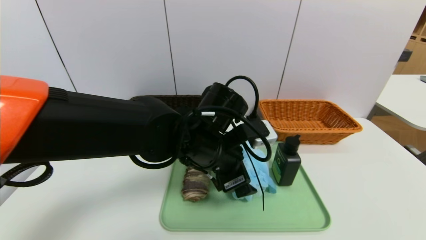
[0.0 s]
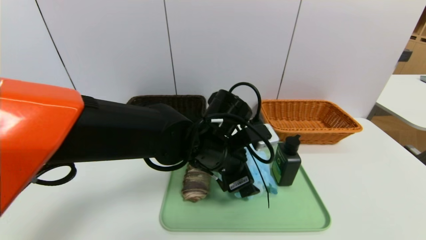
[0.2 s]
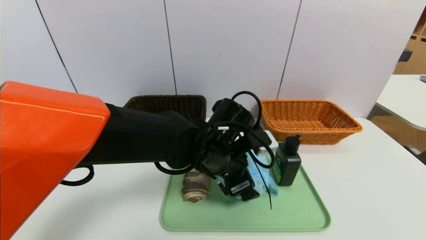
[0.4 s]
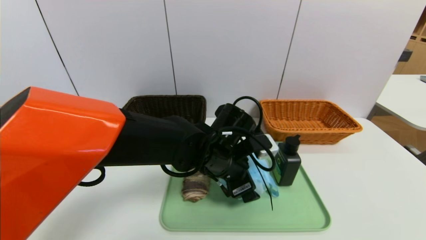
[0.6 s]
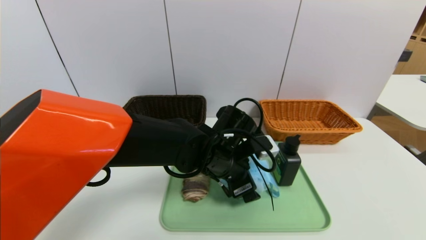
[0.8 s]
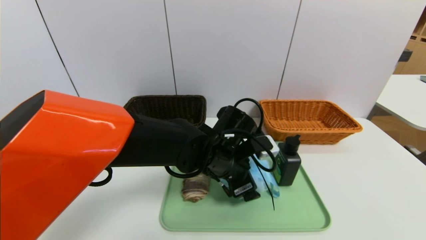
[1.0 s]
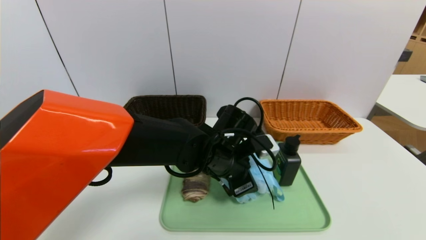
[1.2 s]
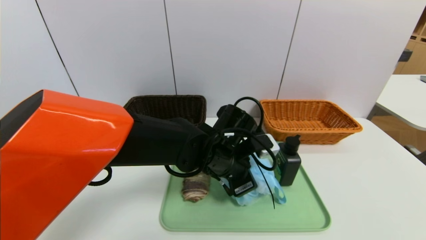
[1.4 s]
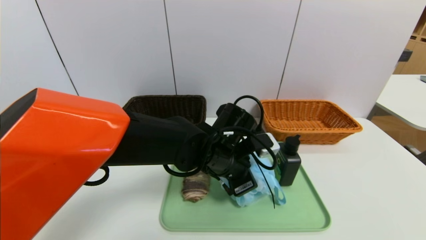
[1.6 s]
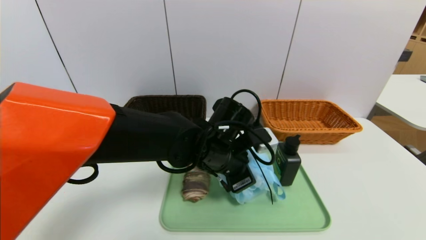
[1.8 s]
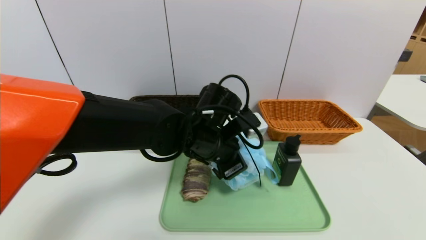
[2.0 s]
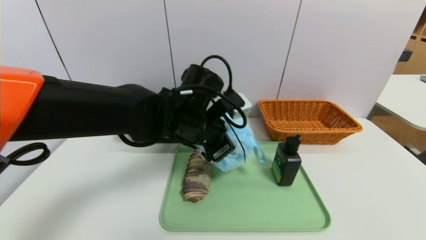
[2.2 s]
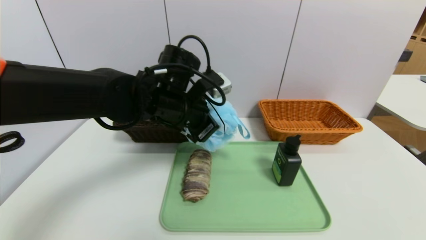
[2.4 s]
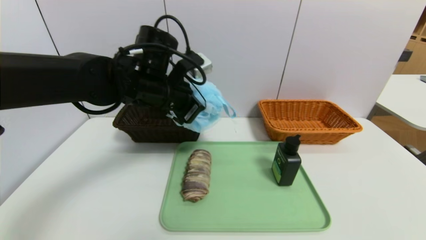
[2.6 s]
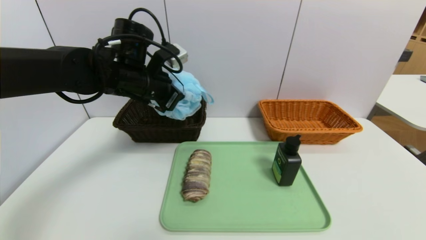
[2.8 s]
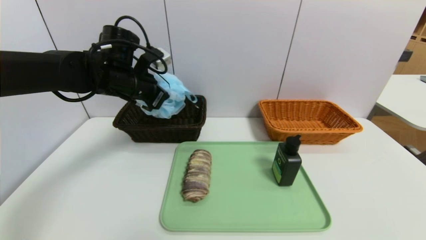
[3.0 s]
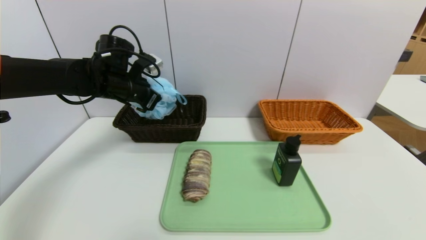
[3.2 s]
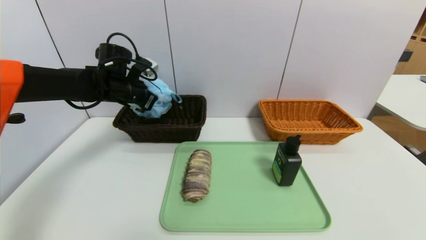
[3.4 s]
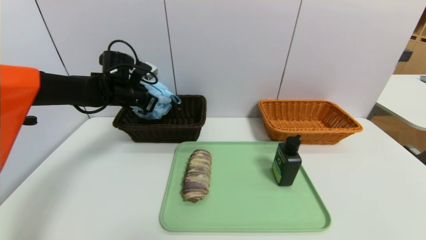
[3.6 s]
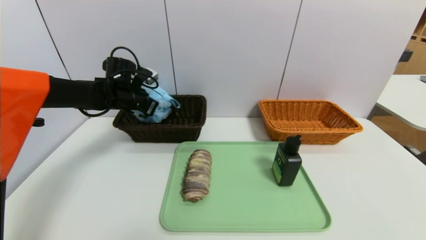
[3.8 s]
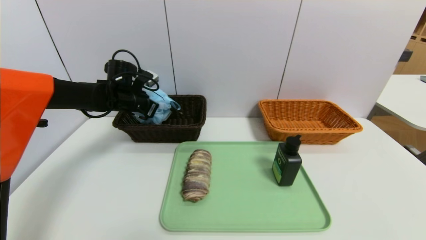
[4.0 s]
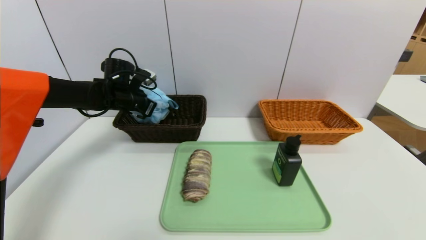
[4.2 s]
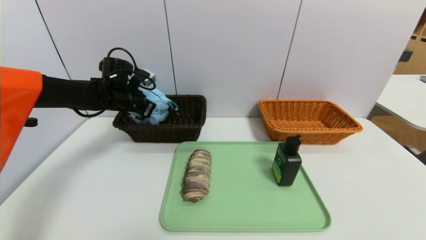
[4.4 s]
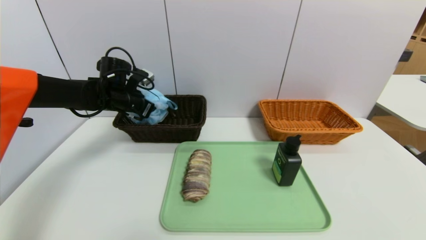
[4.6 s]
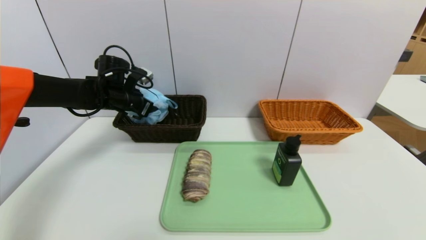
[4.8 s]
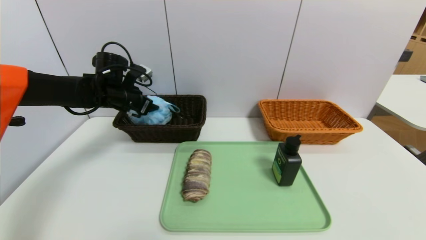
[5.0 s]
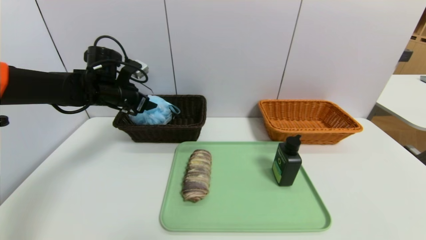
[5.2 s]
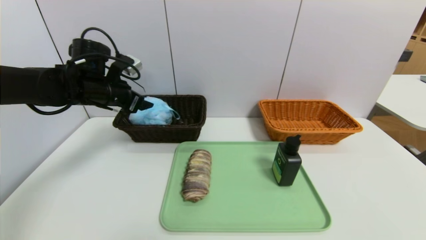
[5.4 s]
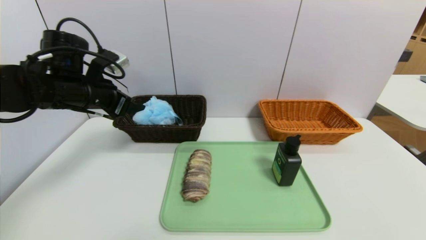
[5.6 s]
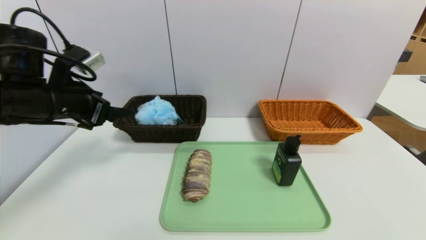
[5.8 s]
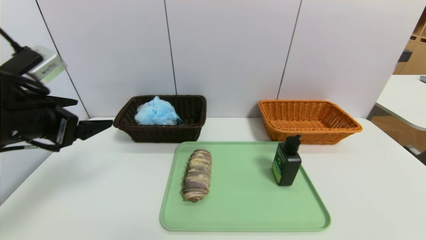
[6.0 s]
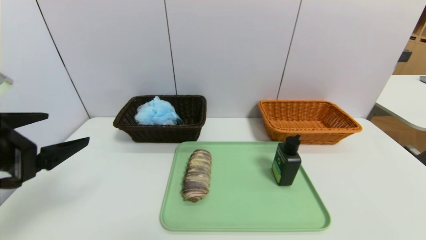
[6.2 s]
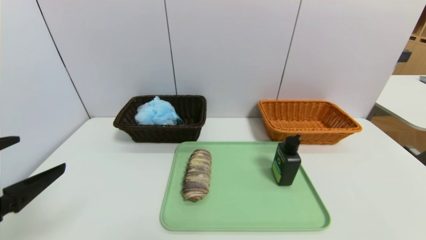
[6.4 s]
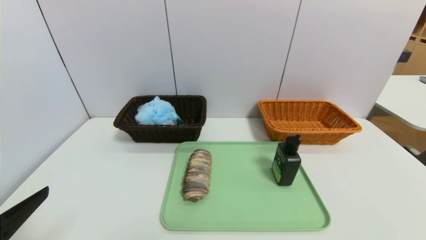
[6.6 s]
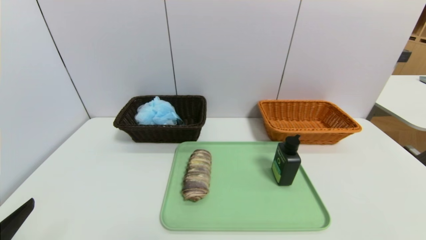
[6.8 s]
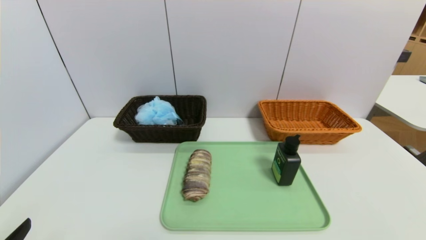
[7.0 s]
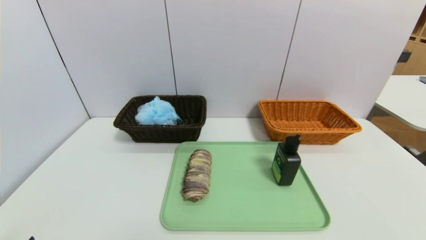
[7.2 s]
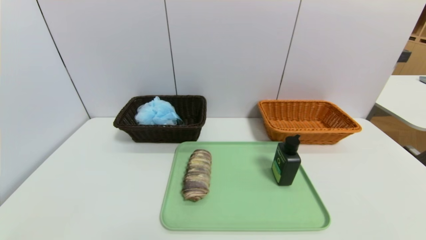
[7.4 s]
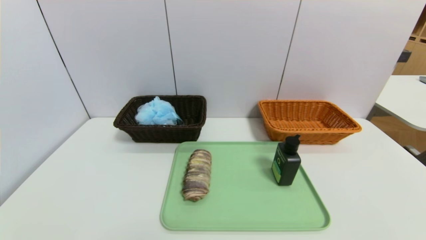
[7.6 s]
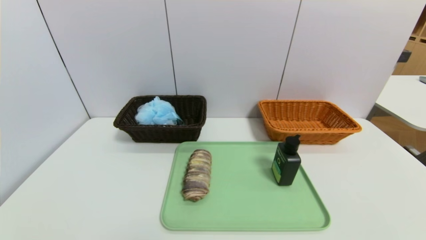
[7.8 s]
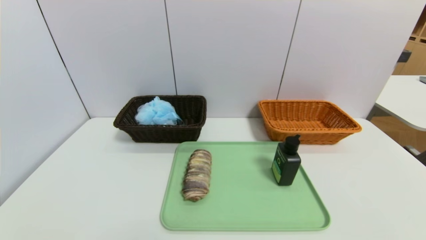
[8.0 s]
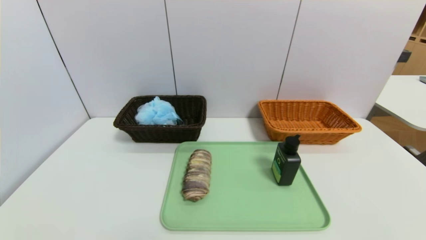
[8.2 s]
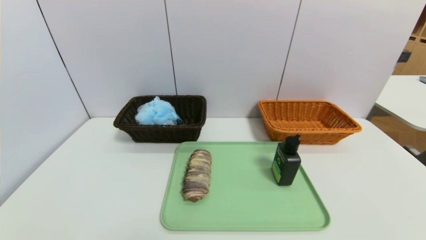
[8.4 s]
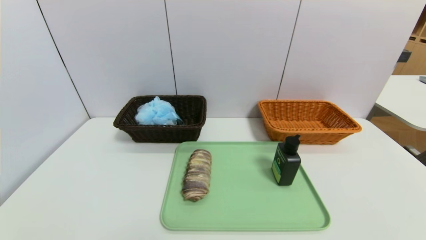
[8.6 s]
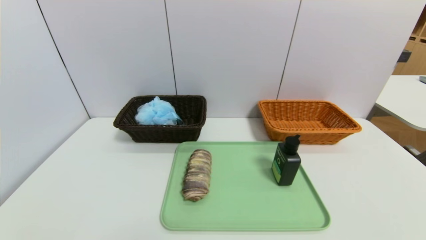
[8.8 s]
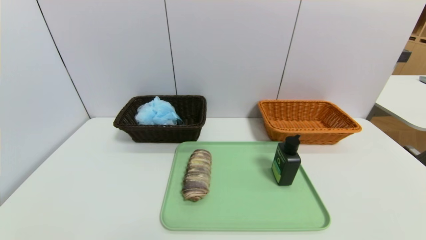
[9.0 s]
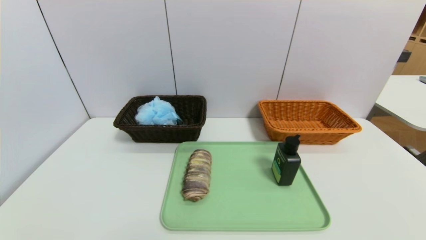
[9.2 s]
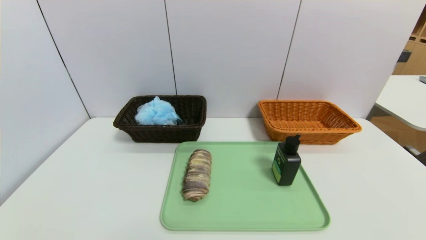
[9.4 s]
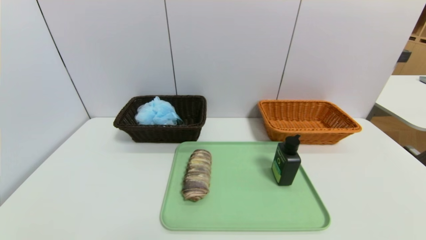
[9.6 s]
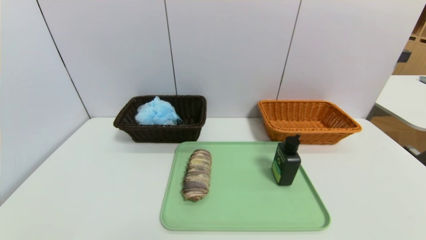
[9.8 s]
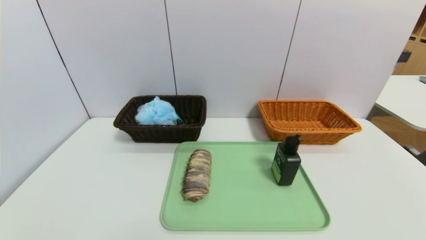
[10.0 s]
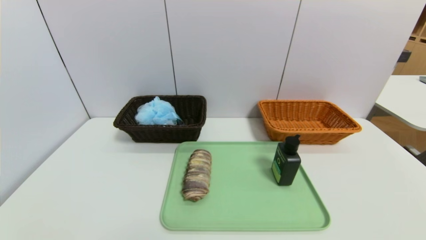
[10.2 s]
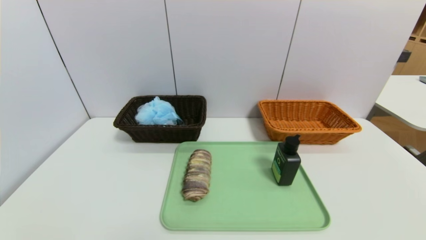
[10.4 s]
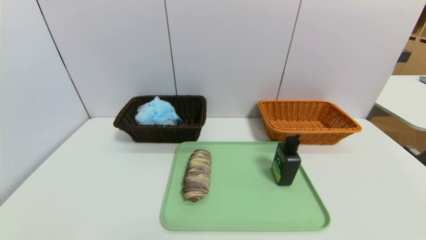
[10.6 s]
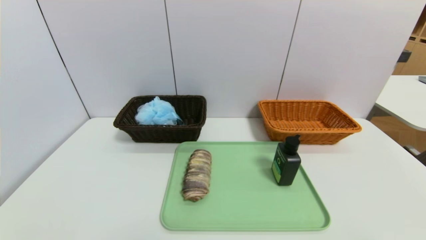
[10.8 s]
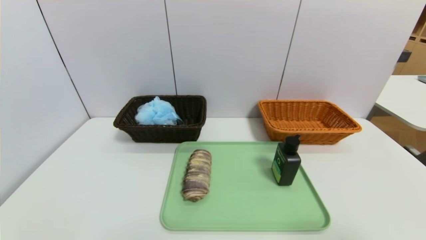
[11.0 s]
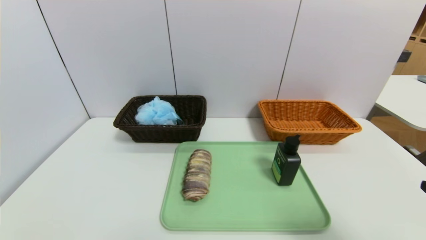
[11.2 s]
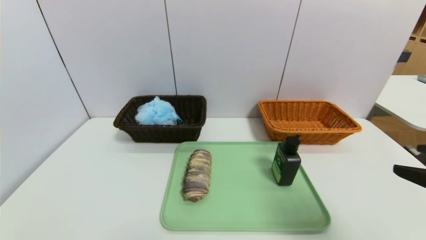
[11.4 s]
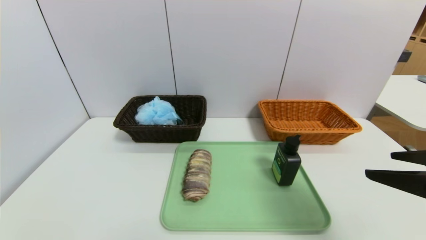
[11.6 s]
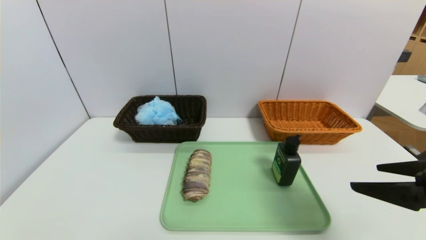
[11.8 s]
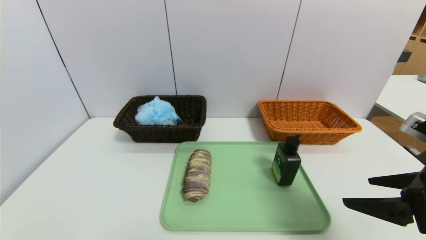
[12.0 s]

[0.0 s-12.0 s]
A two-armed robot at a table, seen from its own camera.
Task of the whole recording: place the food in the right basket with the right gripper, and place the non food items in the left basket with the left gripper.
Step, 0.0 to 5.2 s: Grasp the bath ball and put it in the left basket.
0.0 to 1.6 s: The left gripper changes place by roughly 5 cm, and closes up.
1.6 to 3.0 s: The left gripper heads to the left, upward and forward, covering approximately 25 cm.
3.0 to 4.4 s: The left gripper shifts about 10 cm downward, forward and to the left.
4.4 to 6.0 s: The left gripper travels backward by roughly 25 cm, and opens up.
6.0 to 7.6 s: The left gripper goes roughly 30 cm backward and downward.
10.4 to 12.0 s: The right gripper is displaced forward and upward by roughly 20 cm.

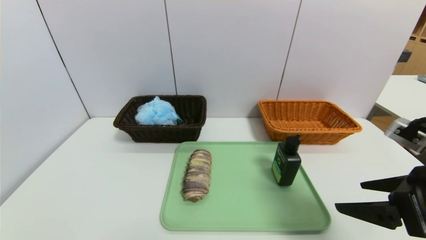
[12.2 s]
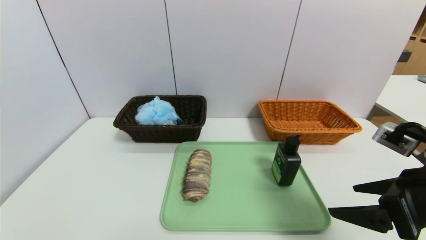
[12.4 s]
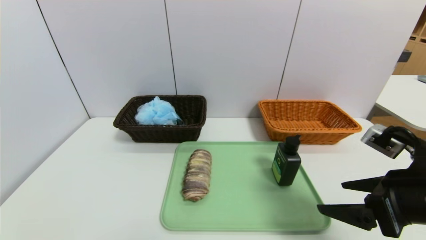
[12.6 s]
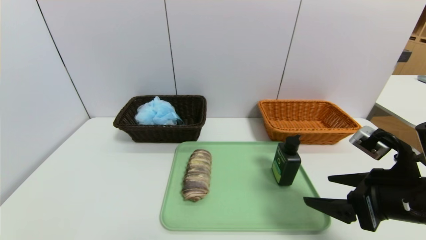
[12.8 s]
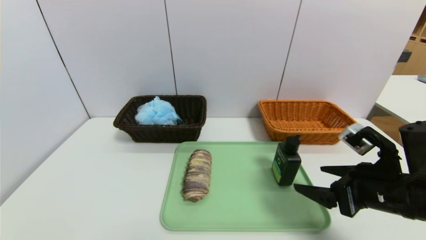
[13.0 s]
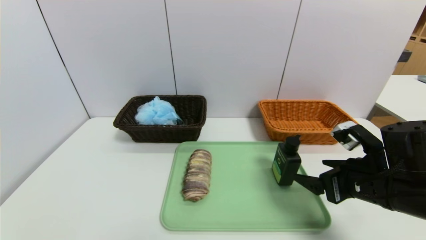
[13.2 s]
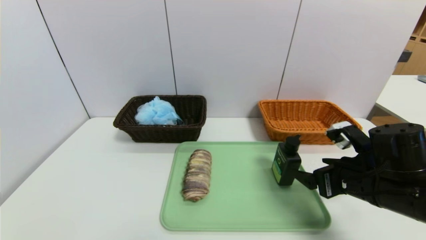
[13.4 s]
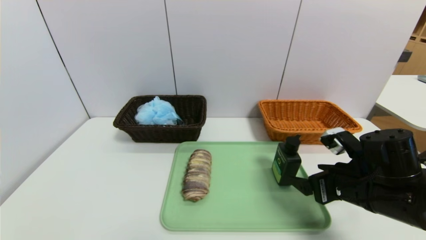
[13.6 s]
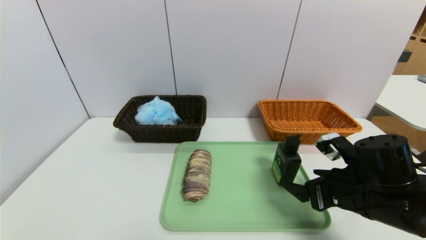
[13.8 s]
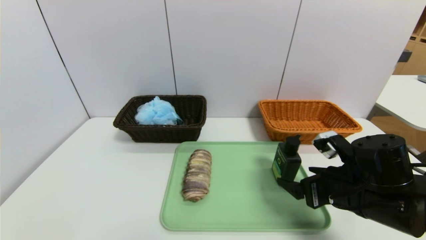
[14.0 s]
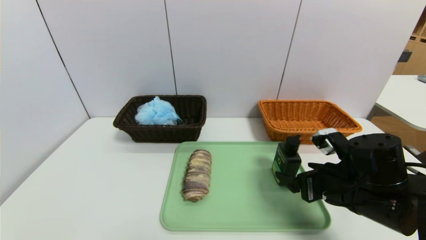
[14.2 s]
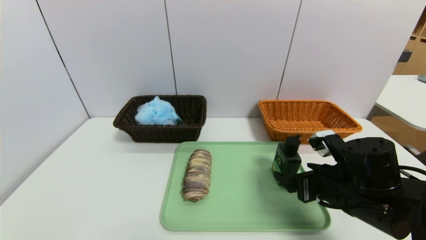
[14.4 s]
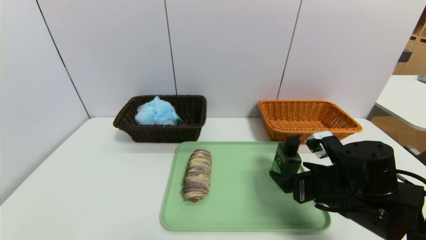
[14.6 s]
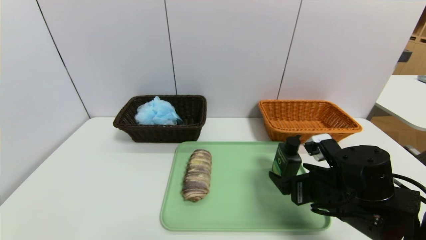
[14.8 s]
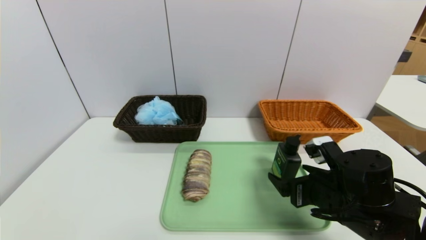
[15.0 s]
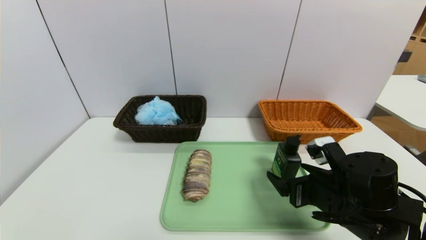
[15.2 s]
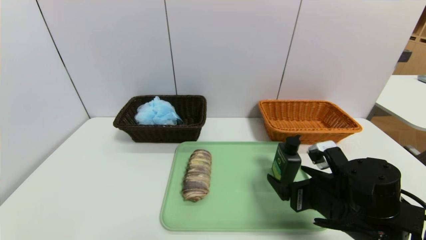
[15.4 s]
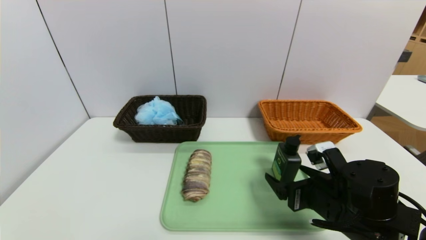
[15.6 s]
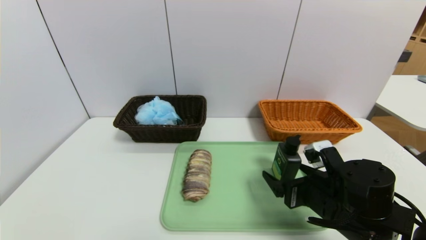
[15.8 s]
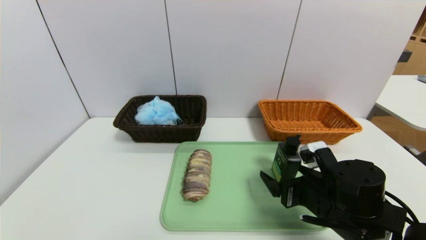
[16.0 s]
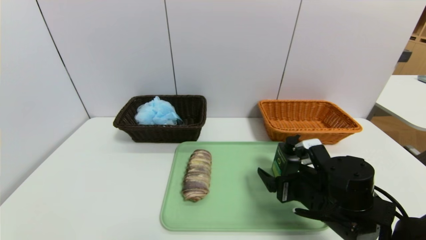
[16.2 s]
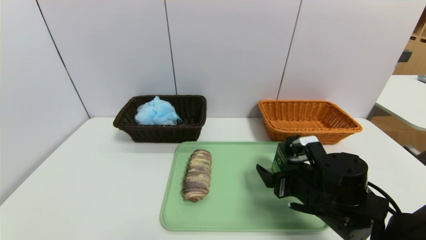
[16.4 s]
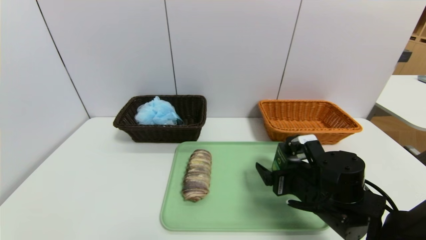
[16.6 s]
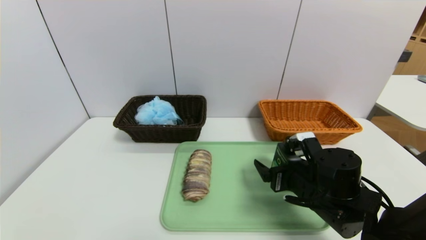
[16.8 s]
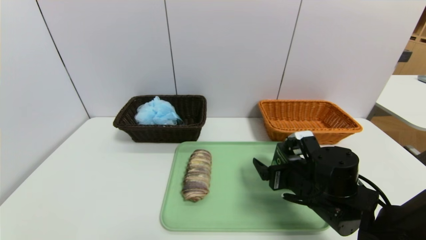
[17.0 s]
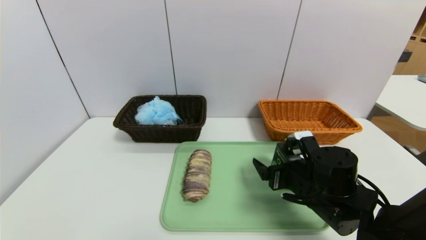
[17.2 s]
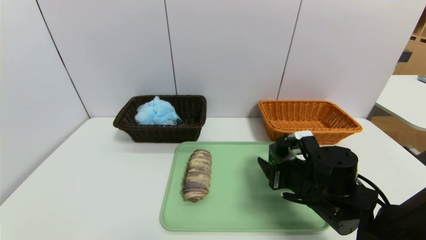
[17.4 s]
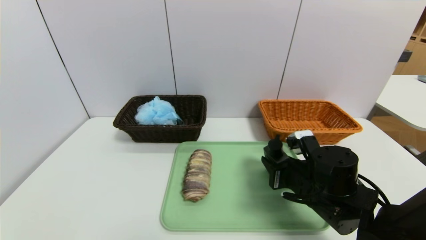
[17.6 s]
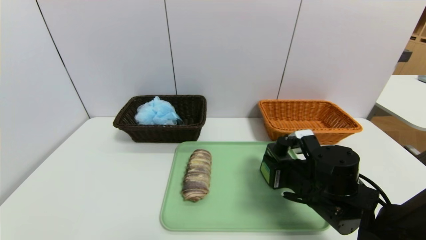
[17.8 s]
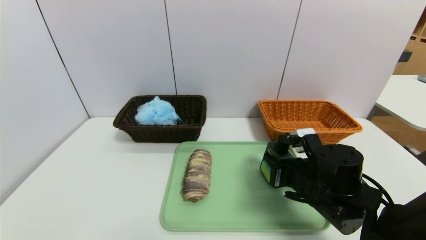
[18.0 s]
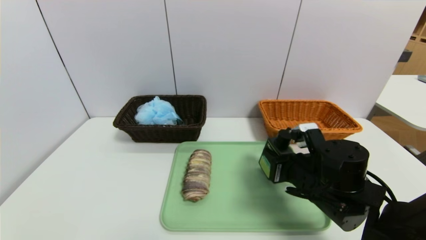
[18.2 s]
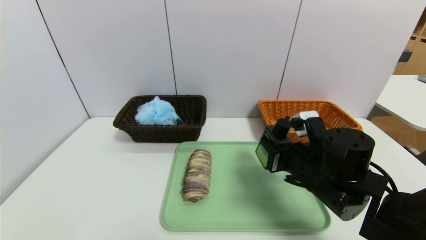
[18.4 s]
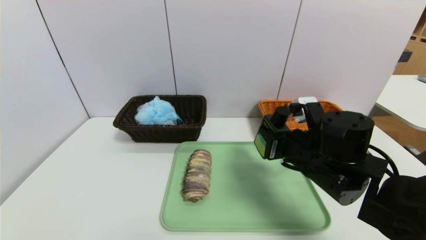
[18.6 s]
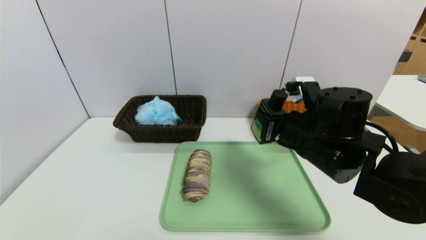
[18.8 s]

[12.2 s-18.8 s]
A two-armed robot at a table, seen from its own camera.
Task of the whole recording: place the food in the right basket with the right gripper, and place the non food items in the left basket with the left gripper.
12.2 to 13.8 s: The right gripper moves downward and forward, some 10 cm.
13.8 to 15.4 s: The grippers make only small movements.
15.4 to 17.2 s: The right gripper ends up some 5 cm from where it was.
17.2 to 18.8 s: The right gripper shifts approximately 10 cm upward, and closes up.
